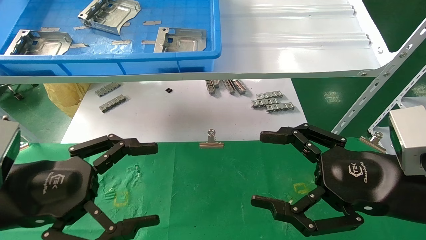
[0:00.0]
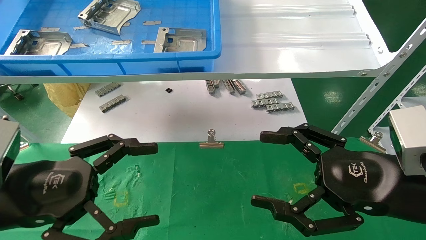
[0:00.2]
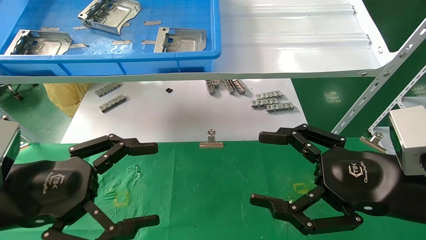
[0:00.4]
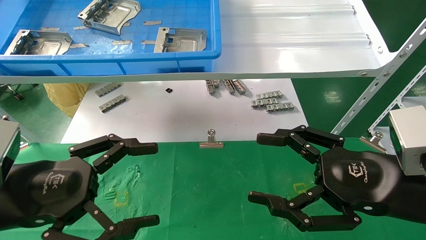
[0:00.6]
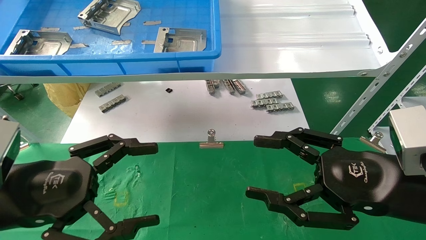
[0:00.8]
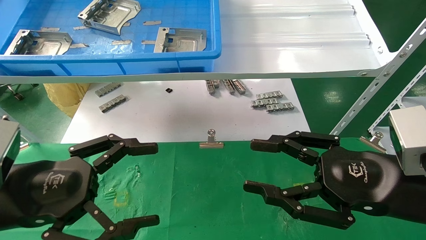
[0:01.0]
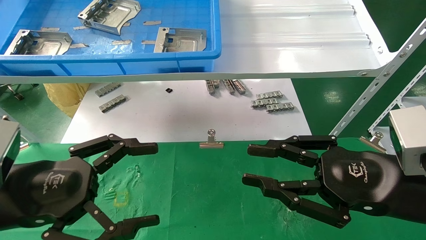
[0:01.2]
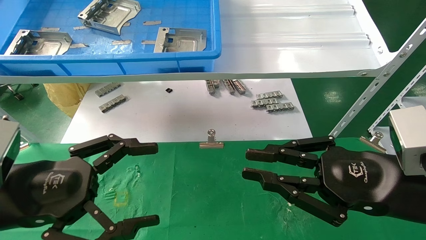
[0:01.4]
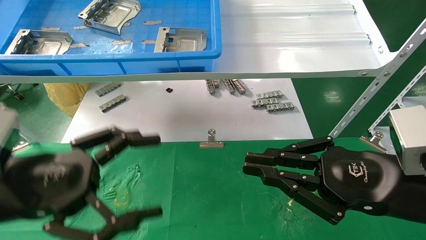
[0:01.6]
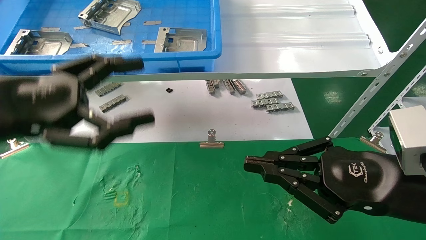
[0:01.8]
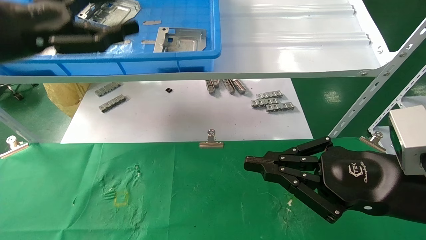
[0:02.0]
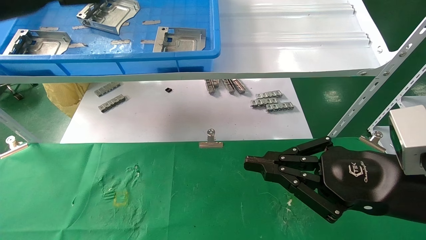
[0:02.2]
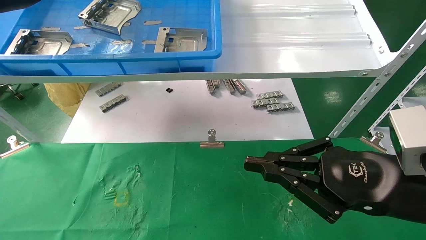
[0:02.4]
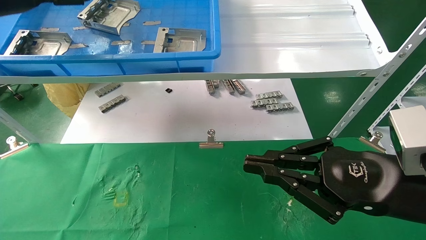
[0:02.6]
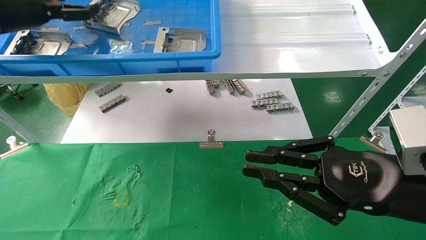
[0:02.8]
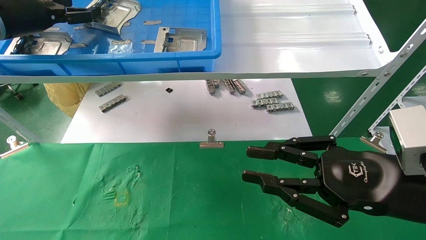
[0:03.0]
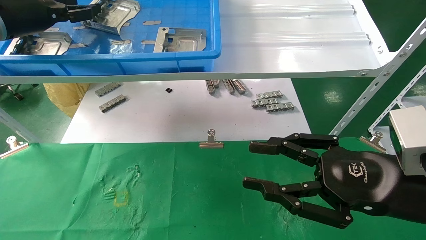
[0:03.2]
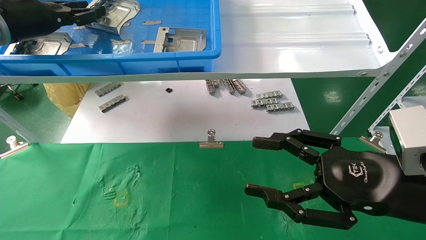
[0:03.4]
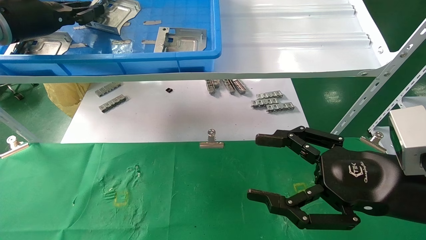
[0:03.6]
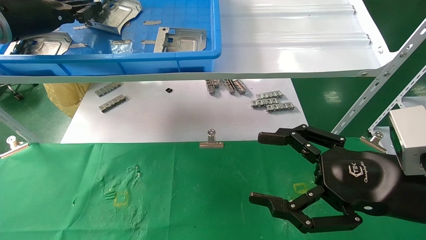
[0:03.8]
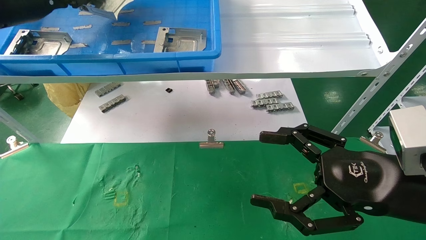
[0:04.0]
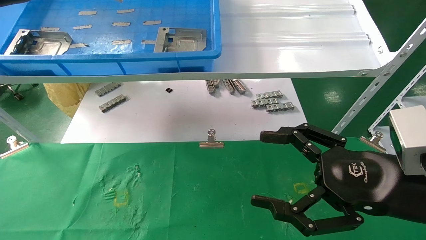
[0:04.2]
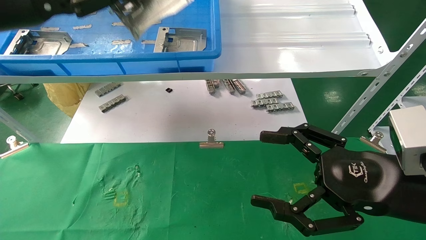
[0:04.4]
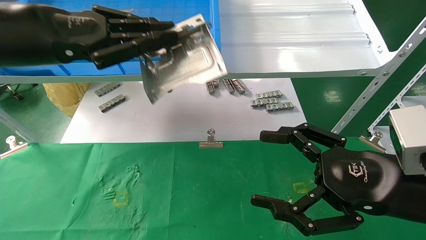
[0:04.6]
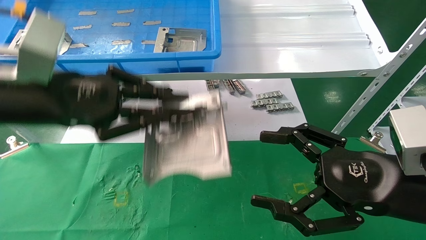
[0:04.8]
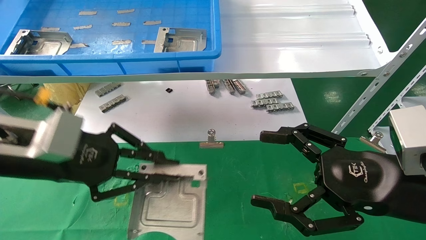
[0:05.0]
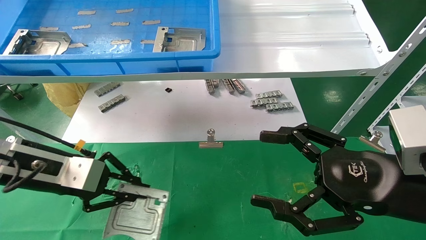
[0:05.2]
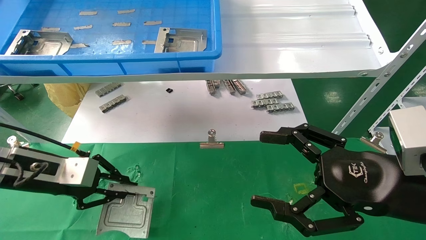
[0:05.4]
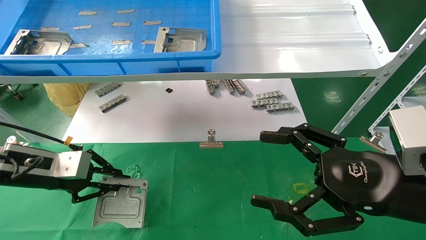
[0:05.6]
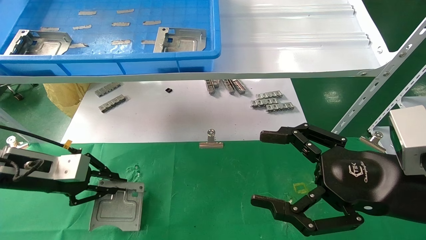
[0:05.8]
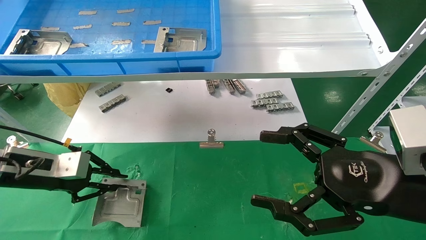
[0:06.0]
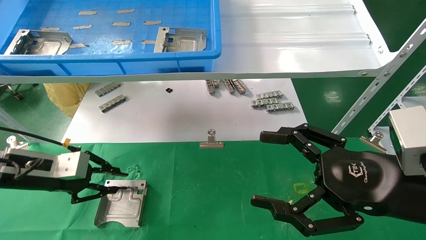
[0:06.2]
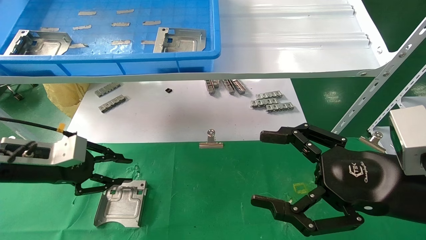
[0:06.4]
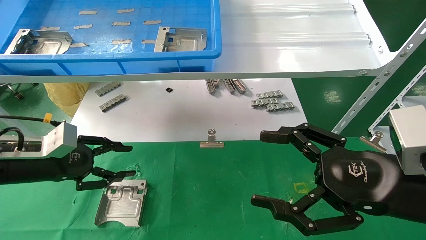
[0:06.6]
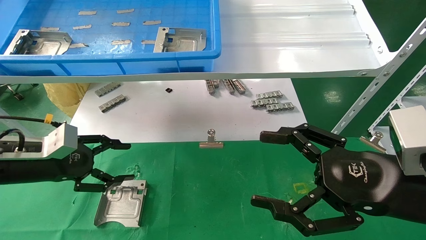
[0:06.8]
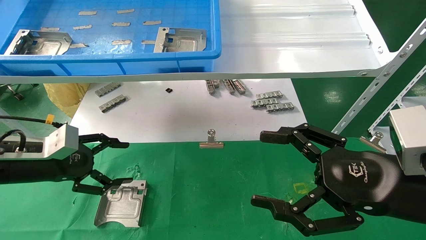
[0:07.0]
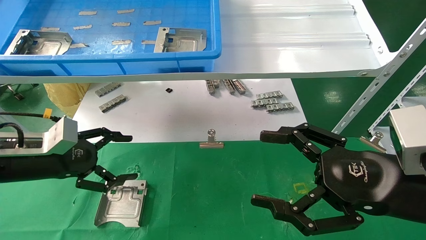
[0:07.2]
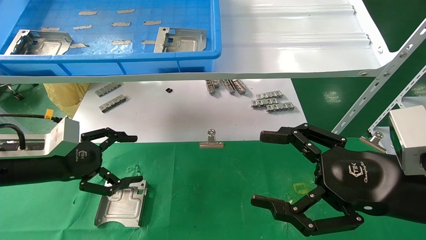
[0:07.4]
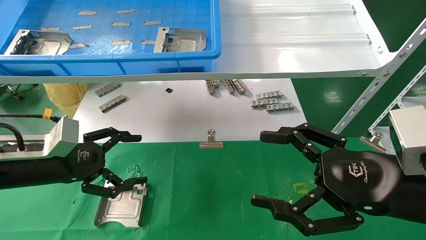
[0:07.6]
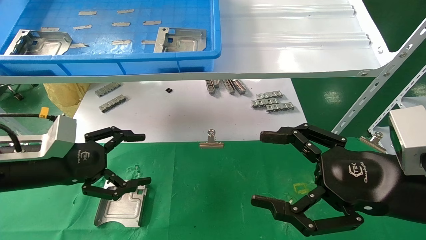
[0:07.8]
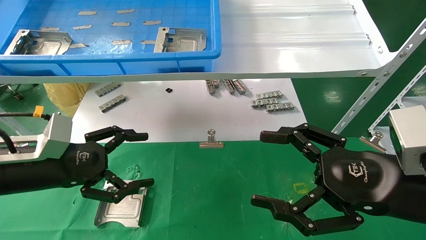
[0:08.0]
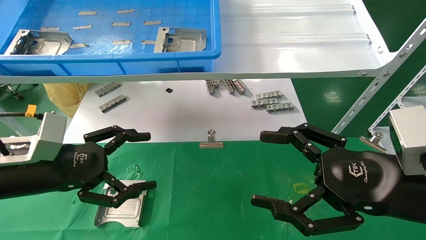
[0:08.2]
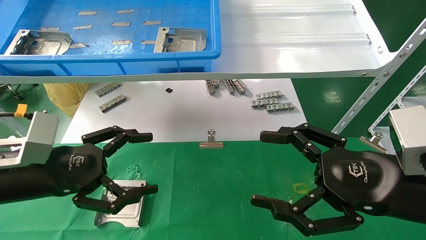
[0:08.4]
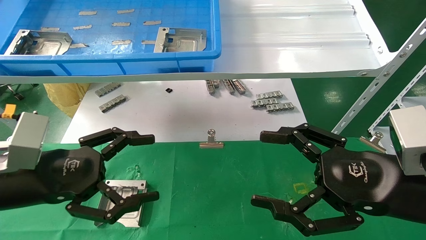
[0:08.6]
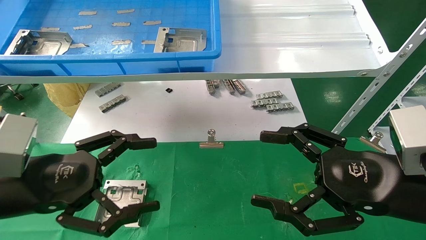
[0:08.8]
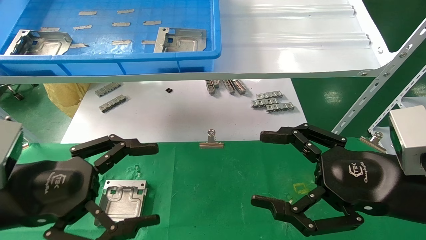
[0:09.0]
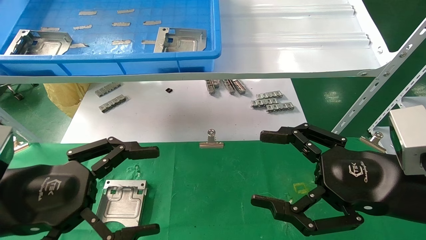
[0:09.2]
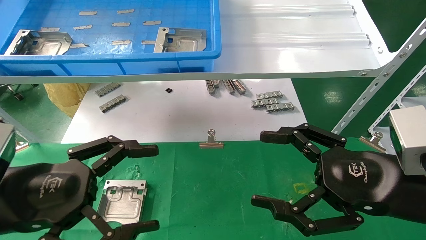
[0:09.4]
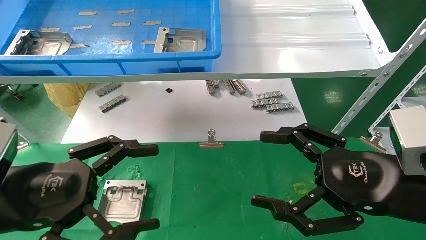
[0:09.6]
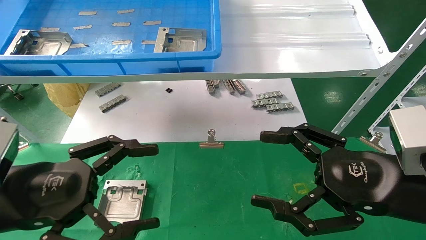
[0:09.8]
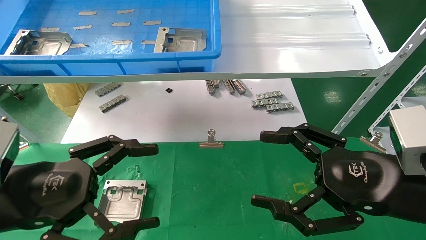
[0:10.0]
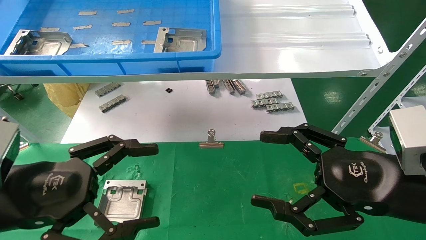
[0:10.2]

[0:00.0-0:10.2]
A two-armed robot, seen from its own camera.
Task of the whole recording: use the mechanical arm to pick up the parts and place them on the table.
Step, 0:01.6 to 0:03.6: Pick up the hard drive bracket from the feeding area.
Step, 0:03.8 to 0:06.2: Place the hard drive bracket into the box.
0:00.0 to 0:01.4: The right gripper closes its fingers.
0:01.4 to 0:03.0: The left gripper heads forward, upward and to the left, covering some 30 cm.
0:03.0 to 0:04.4: The left gripper is displaced backward and to the right by some 10 cm, and closes up. Meanwhile the right gripper opens up.
0:04.4 to 0:05.8: The left gripper shifts some 25 cm downward.
0:05.8 to 0:07.2: The left gripper opens its fingers.
0:07.2 to 0:08.8: The left gripper travels backward and to the right by about 15 cm.
0:08.8 to 0:10.2: There are only small adjustments of the grippers.

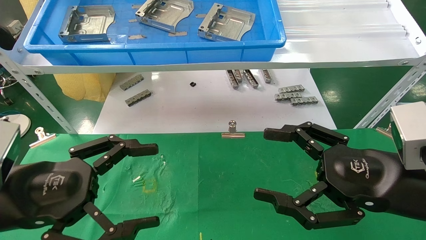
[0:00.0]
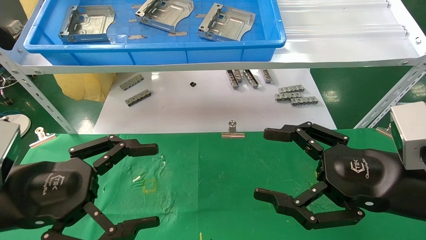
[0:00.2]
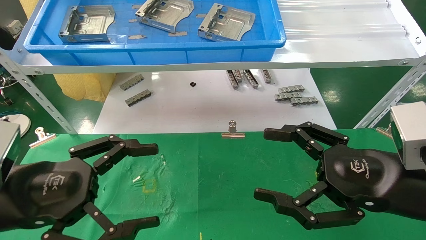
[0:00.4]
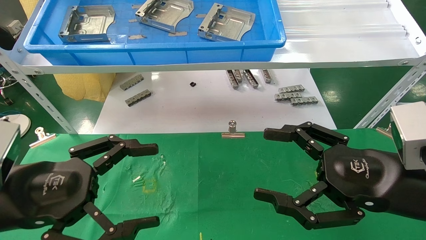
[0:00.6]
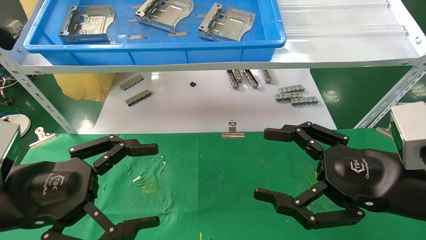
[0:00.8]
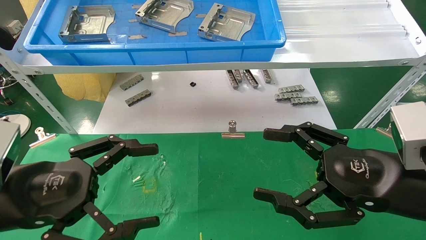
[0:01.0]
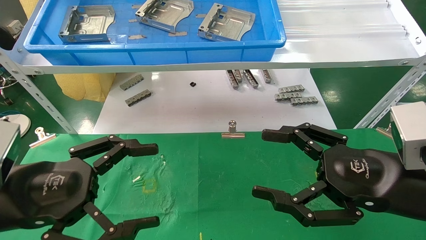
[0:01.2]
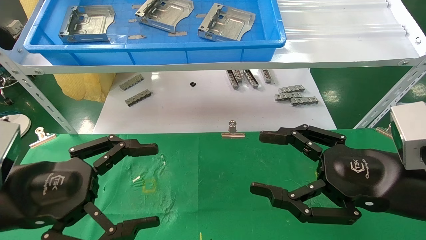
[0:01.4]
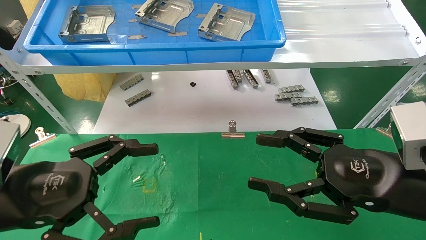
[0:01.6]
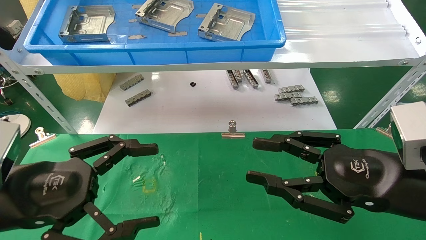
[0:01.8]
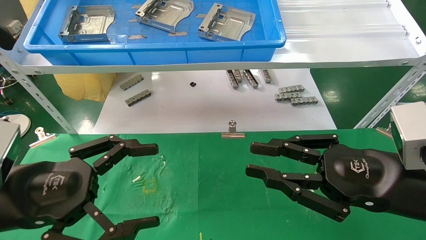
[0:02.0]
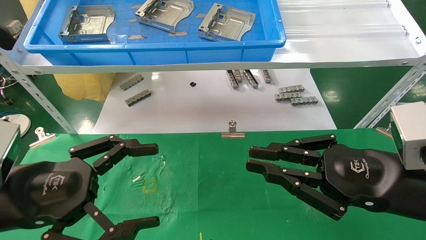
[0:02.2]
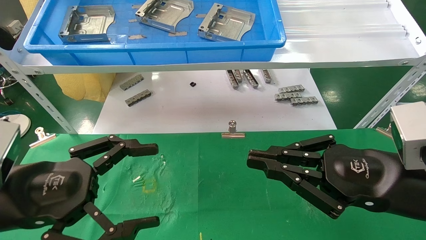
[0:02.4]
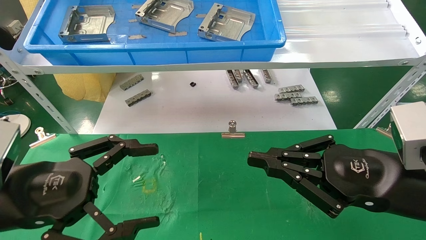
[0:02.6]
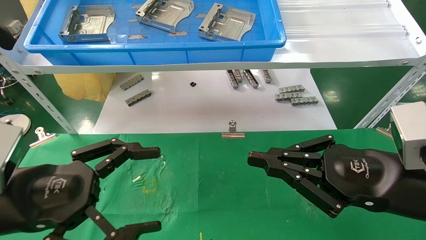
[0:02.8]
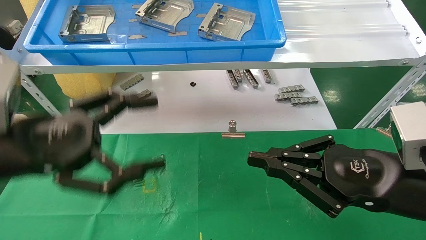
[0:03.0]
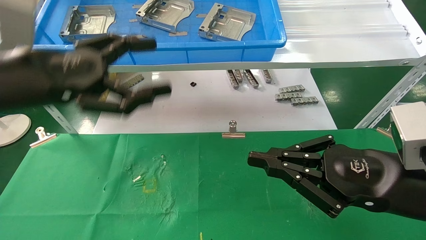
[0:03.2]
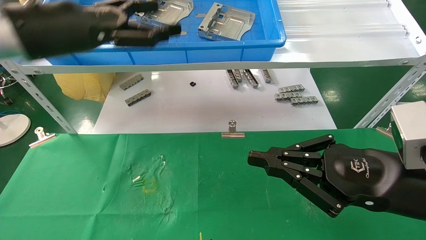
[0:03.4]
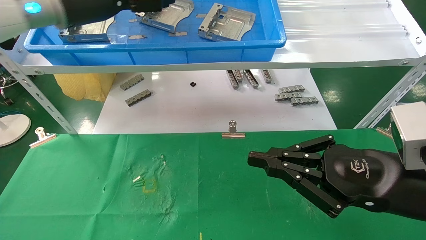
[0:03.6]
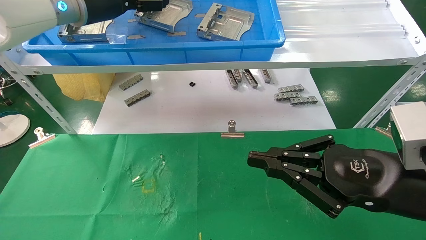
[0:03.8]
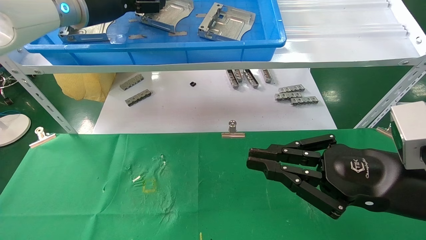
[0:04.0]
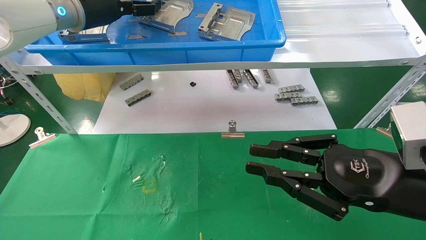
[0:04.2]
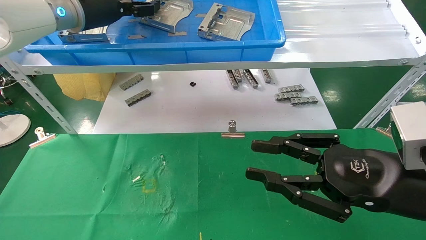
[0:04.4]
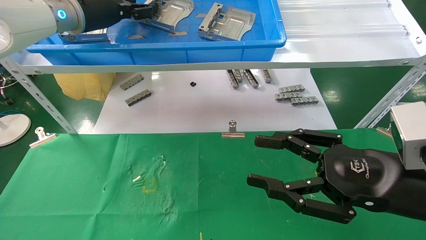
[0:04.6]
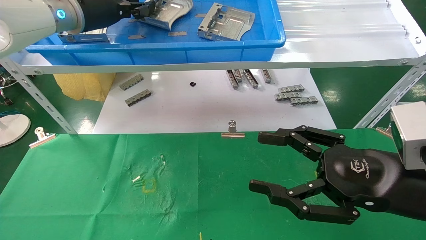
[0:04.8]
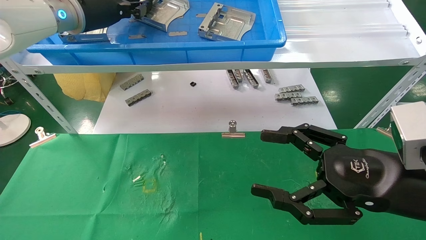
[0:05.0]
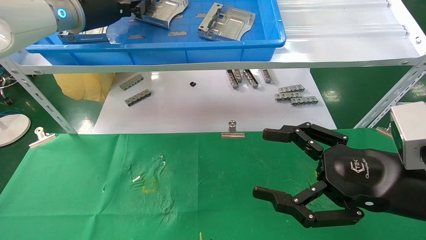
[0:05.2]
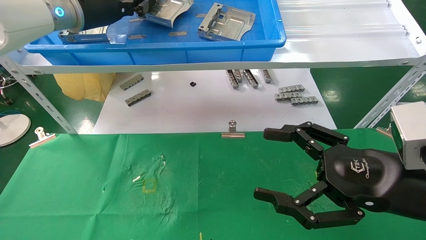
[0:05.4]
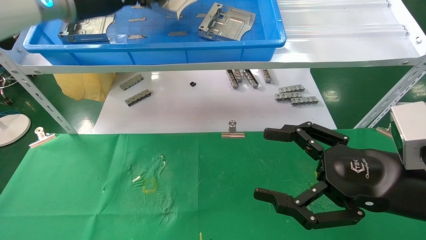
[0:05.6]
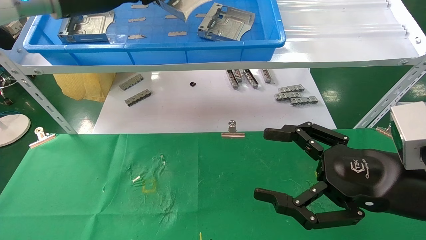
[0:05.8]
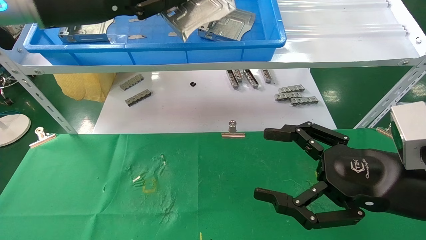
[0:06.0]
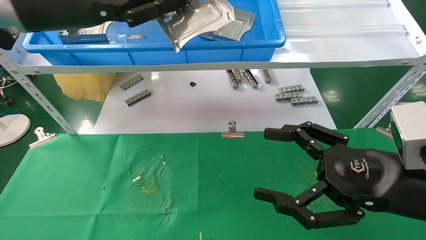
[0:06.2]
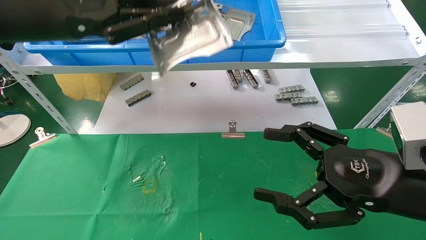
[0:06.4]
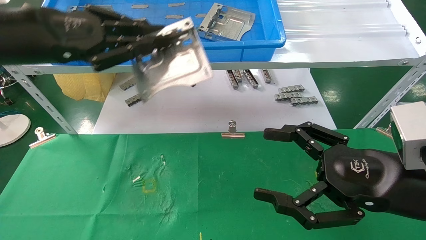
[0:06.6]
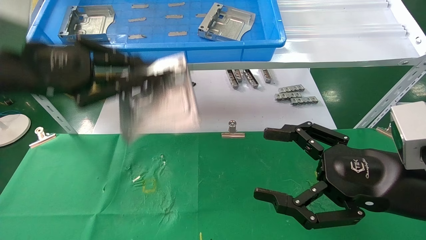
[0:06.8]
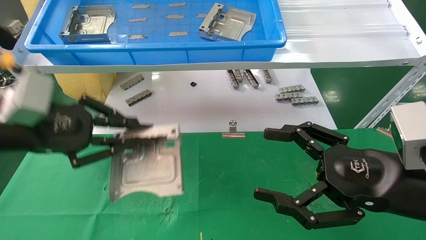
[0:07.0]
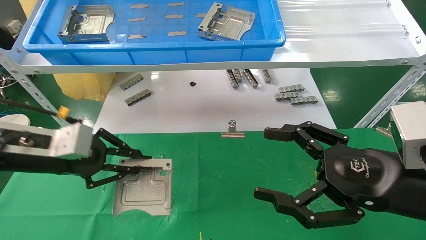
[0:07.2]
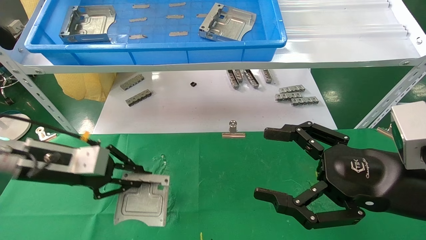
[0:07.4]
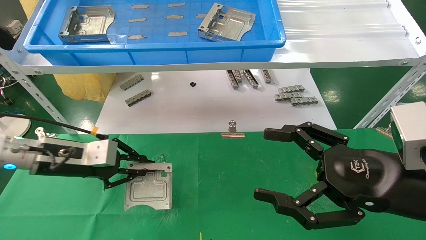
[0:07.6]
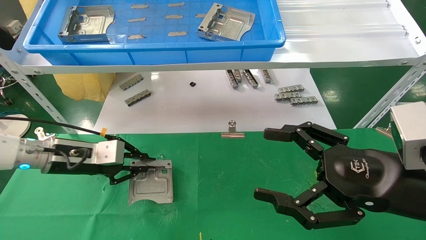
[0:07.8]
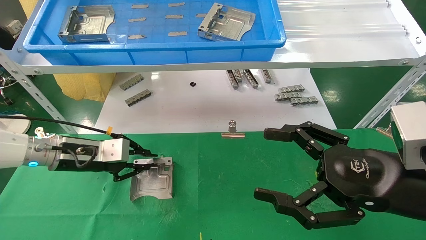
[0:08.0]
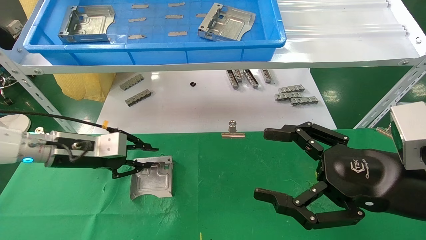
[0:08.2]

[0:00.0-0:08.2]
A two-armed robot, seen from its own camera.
Task of the whole recording: use the mechanical arm to pick up the parts and place them on the table.
Step, 0:03.0 to 0:05.2: Pick up the hard drive bracket from the feeding area.
0:00.0 to 0:01.6: Neither gripper changes place.
0:01.6 to 0:03.2: The left gripper shifts roughly 15 cm upward and forward; the right gripper closes up.
0:03.2 to 0:05.0: The left gripper shifts approximately 20 cm forward and upward, and closes. Meanwhile the right gripper opens up.
0:05.0 to 0:06.6: The left gripper goes about 15 cm backward.
0:06.6 to 0:08.2: The left gripper is displaced downward and forward by some 25 cm.
